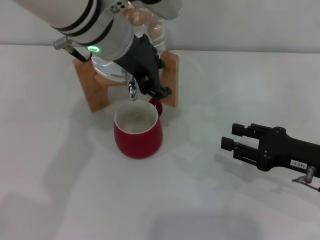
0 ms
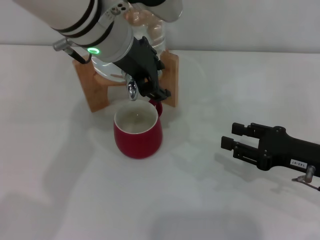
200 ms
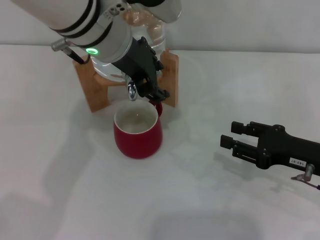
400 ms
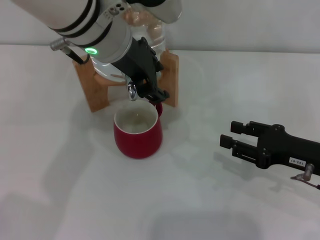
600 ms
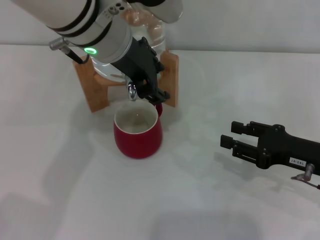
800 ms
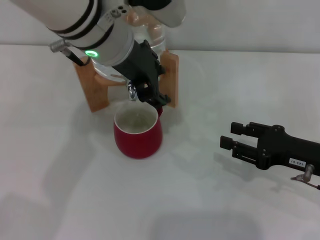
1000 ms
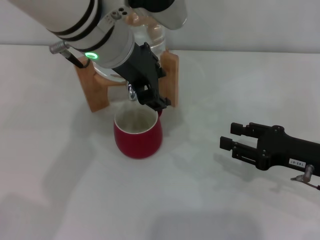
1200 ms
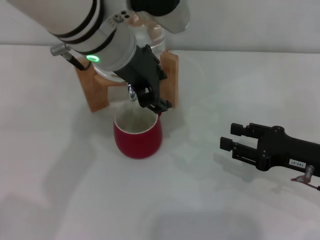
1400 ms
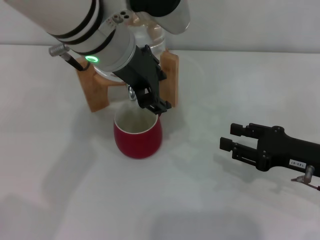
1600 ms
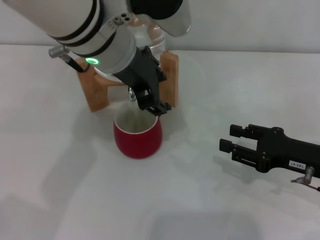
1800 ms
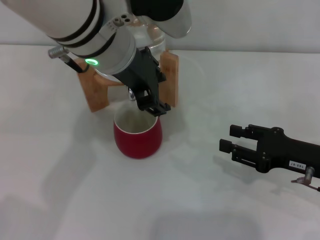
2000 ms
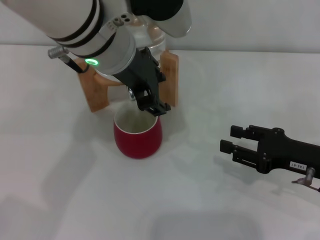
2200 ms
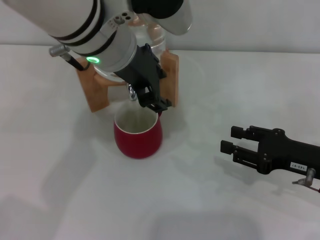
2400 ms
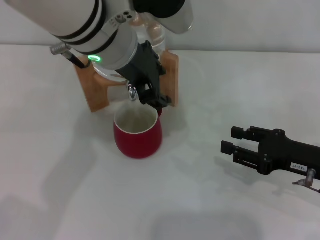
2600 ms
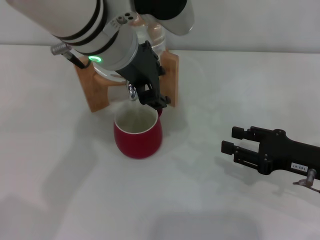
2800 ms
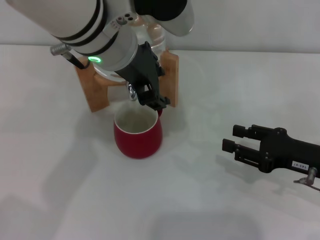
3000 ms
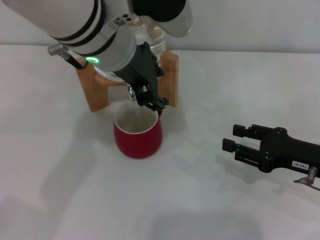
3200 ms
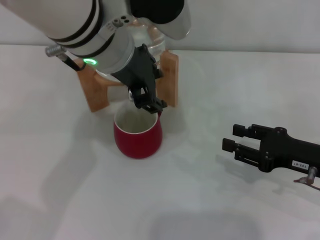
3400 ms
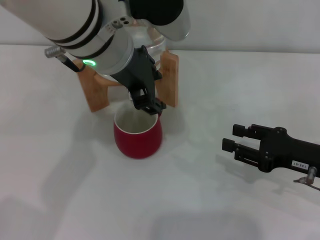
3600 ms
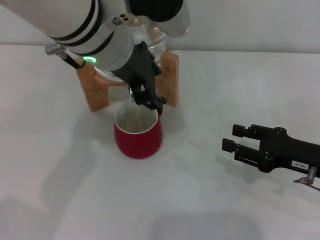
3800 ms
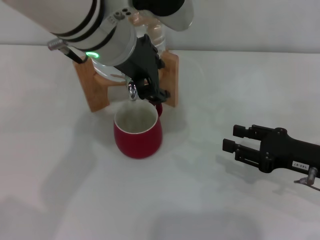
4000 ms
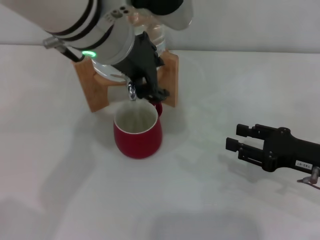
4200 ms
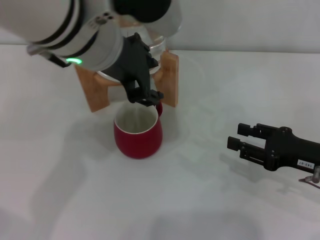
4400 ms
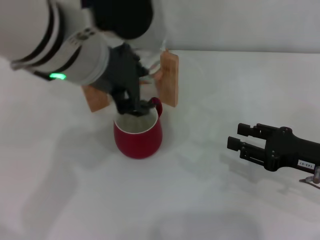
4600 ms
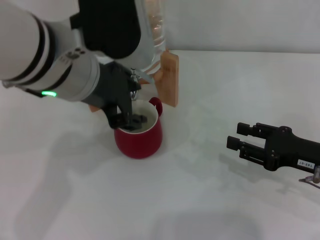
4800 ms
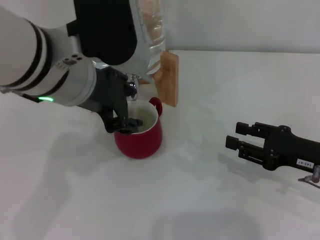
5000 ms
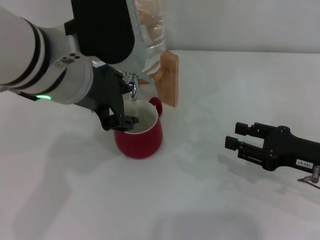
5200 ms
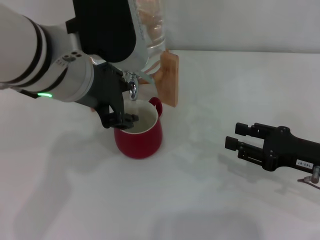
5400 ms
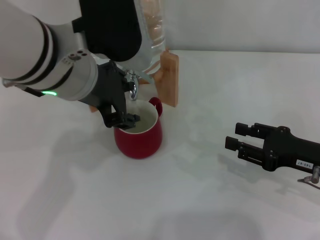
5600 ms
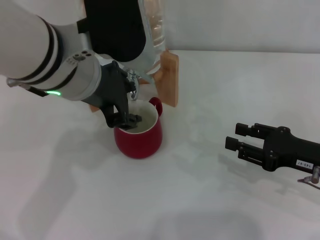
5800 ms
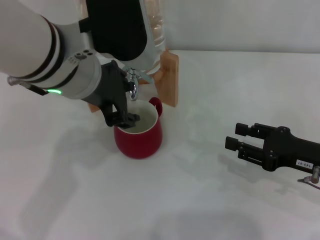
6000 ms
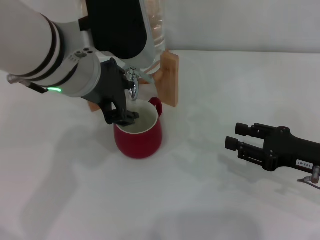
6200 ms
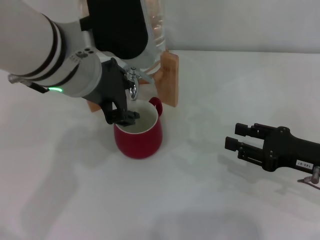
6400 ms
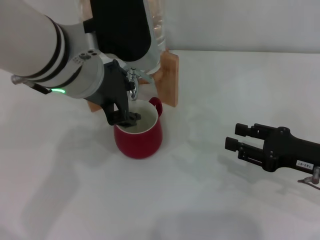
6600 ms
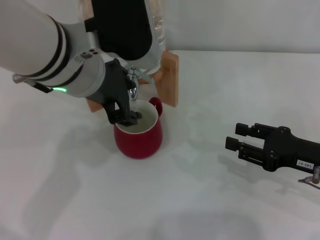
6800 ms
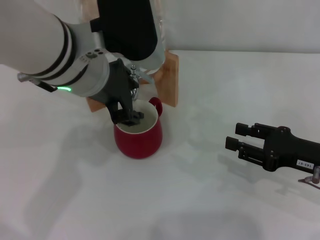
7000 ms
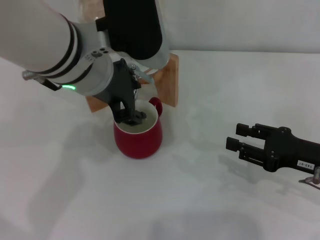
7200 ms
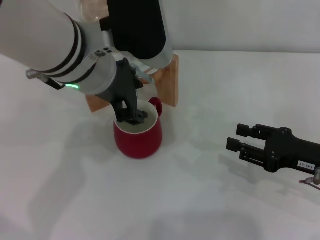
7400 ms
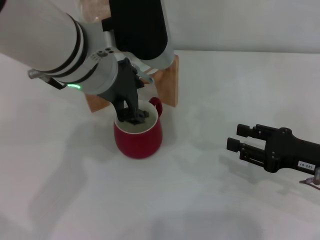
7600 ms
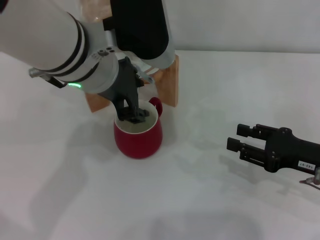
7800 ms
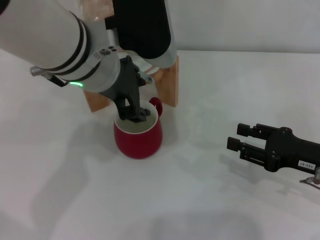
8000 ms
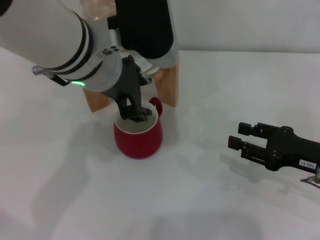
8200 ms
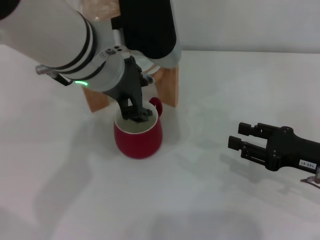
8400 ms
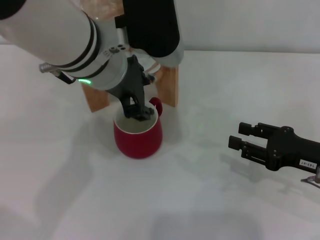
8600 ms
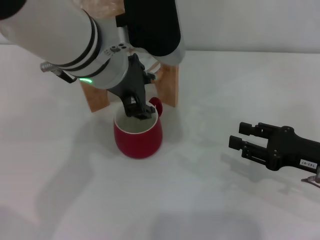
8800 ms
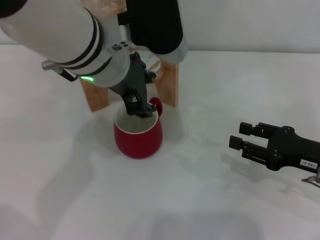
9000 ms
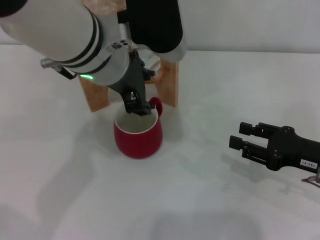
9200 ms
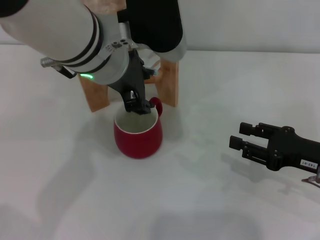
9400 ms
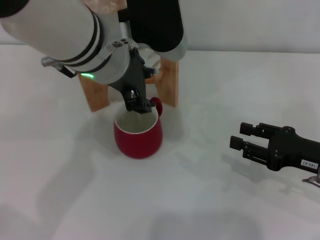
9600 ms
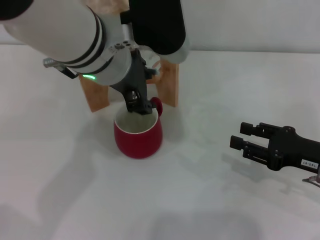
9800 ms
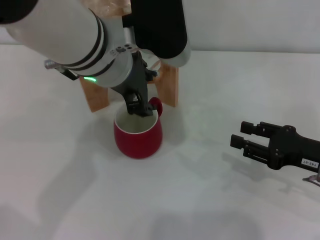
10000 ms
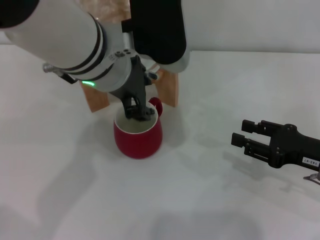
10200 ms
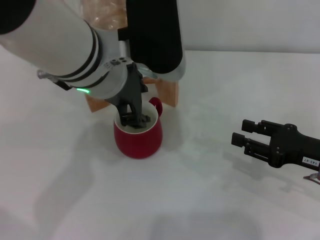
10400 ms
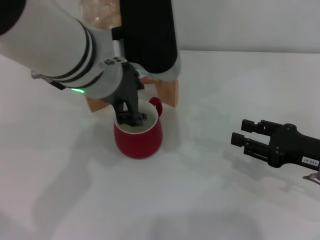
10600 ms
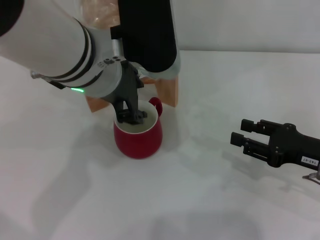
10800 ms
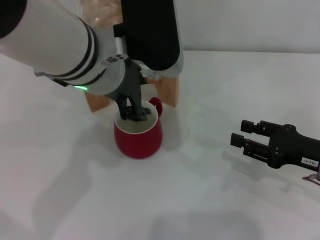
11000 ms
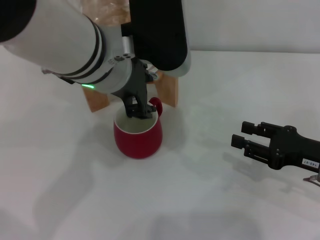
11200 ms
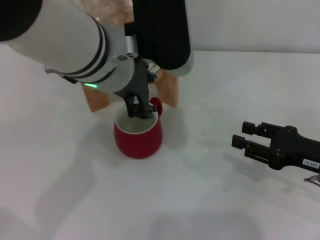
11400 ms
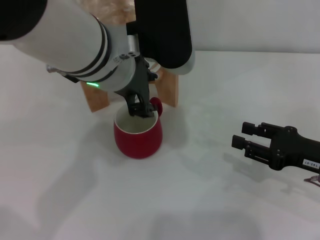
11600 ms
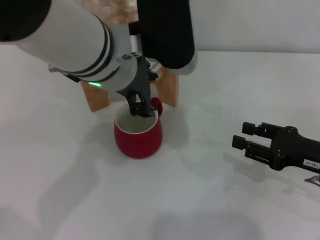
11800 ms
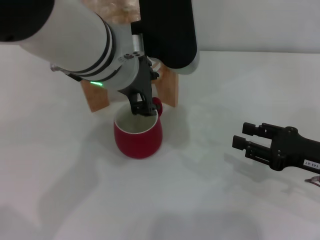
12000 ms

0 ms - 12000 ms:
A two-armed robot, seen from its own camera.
Task of the whole recording: the right gripper pick up the red cup and place it horizontally under the faucet, the left gripper turn on the faucet to fill the cup, and then turn off the faucet.
Step, 0 ms - 3400 ms: Open the dispenser valve and fill the cup with water with the left gripper.
0 ms - 1600 ms: The grippers make only small movements.
1600 ms - 3000 ms: Both grippers stay put.
3000 ms - 4400 ms: The grippers make only small movements.
4400 ms - 9000 ms: The grippers move only a little.
9000 ms - 10400 ms: The two grippers keep their place.
10400 ms - 12000 ms: Both grippers stay about where they are.

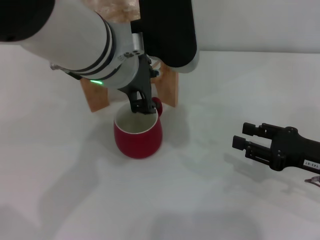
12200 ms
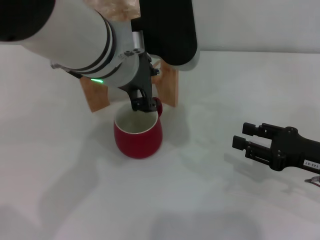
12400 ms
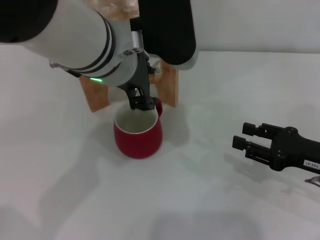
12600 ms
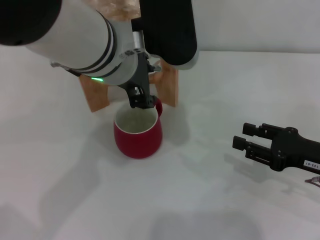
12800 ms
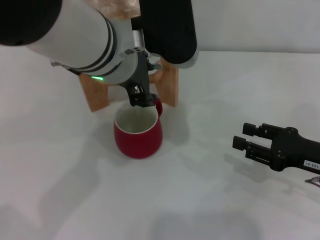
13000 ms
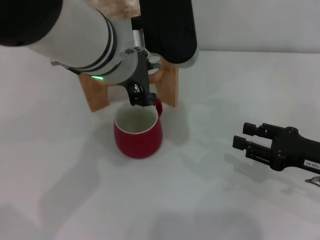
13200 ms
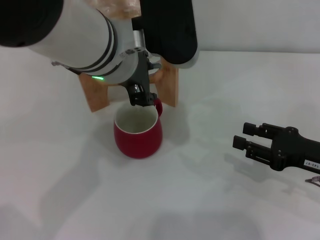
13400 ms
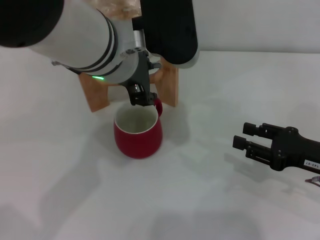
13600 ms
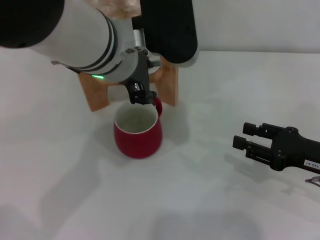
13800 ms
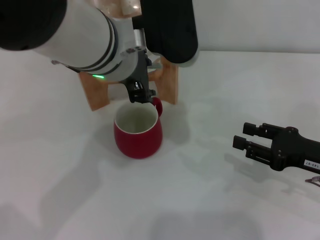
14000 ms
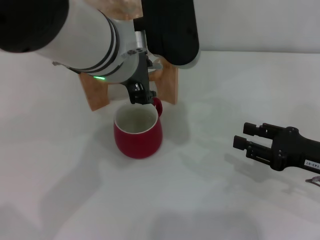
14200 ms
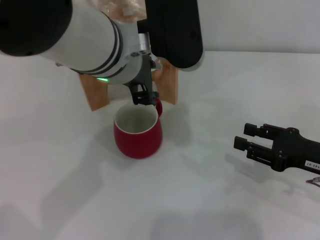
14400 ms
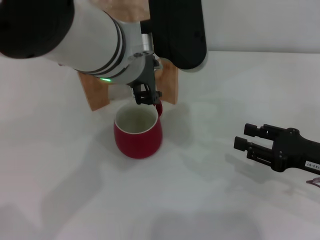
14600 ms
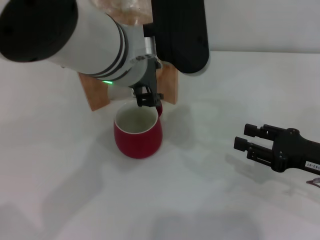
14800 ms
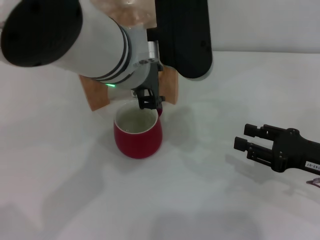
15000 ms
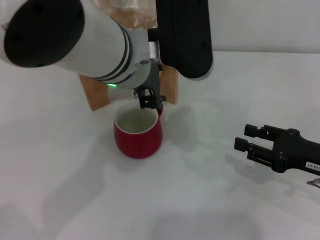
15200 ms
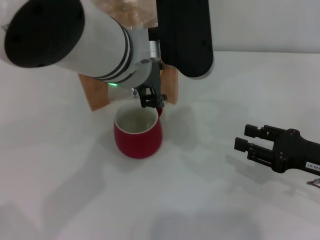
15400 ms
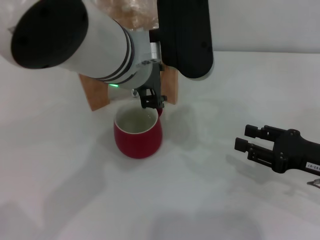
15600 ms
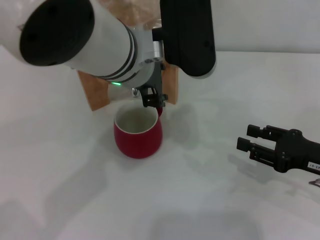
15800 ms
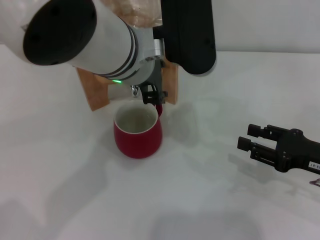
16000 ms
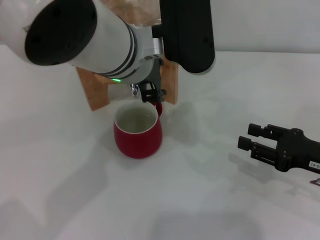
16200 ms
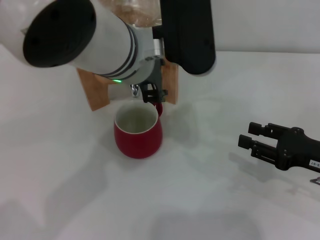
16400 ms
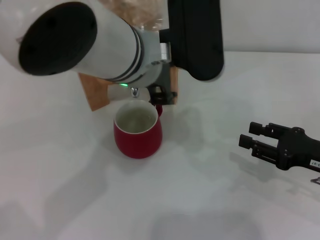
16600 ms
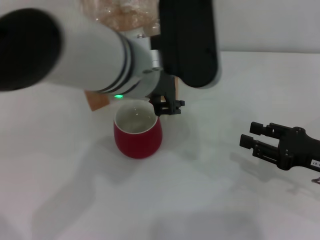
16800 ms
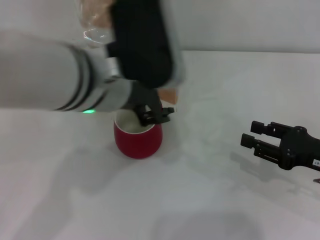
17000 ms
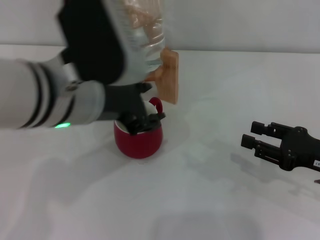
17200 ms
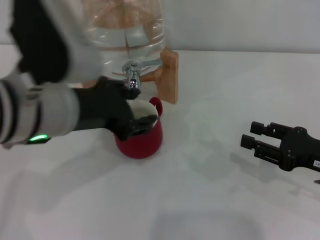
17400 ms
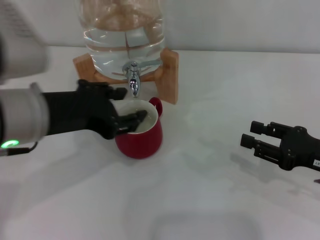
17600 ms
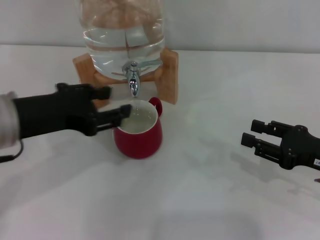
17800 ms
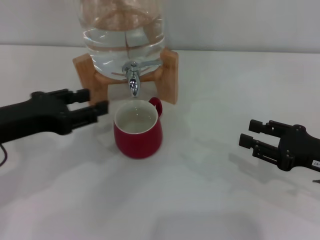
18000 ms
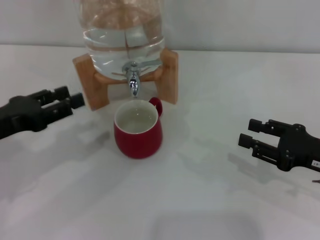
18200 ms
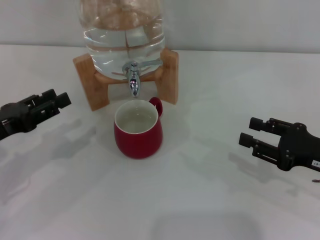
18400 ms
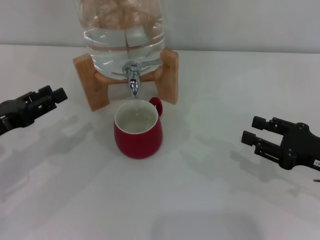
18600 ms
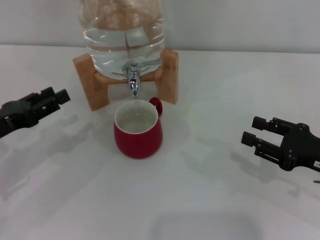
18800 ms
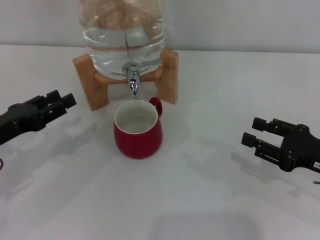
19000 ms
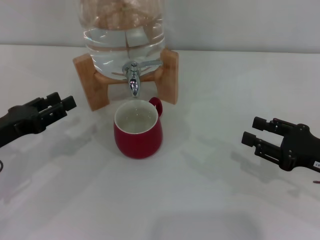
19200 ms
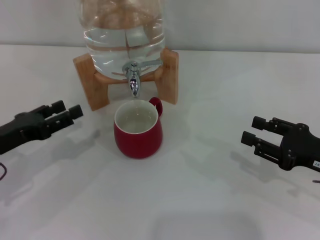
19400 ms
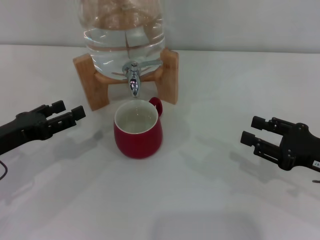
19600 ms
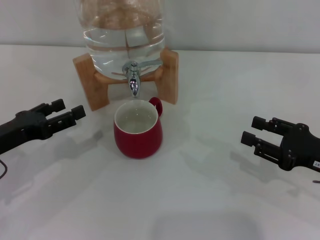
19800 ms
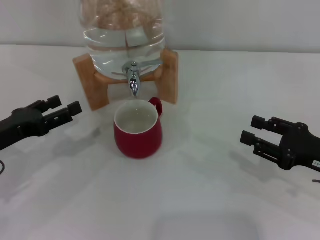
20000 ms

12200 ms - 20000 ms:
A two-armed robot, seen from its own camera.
Task of the whole recording: the right gripper pick up the red cup and place it horizontally under the faucet, the left gripper turn on the faucet to fill the cup, and then turn off the faucet.
Step, 12200 ms - 16600 ms: Close the dispenser valve with the left gripper.
12200 ms - 13800 ms: Neither gripper changes place.
13800 ms - 16800 ms: There are only small adjustments of the grippers.
16800 ms - 18400 ms: The left gripper goes approximately 30 cm to the left and downward.
18400 ms - 20000 ms: The left gripper opens its fingers.
